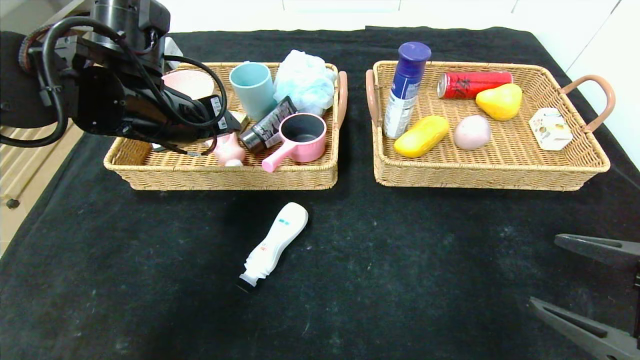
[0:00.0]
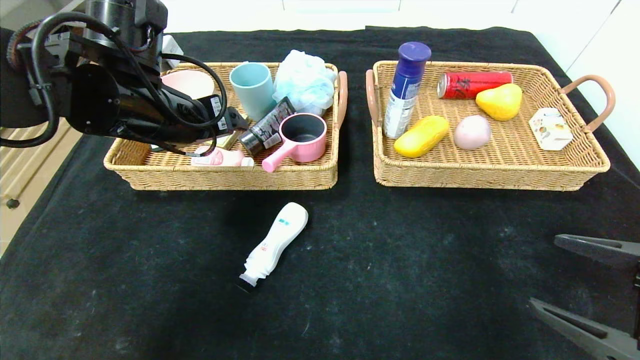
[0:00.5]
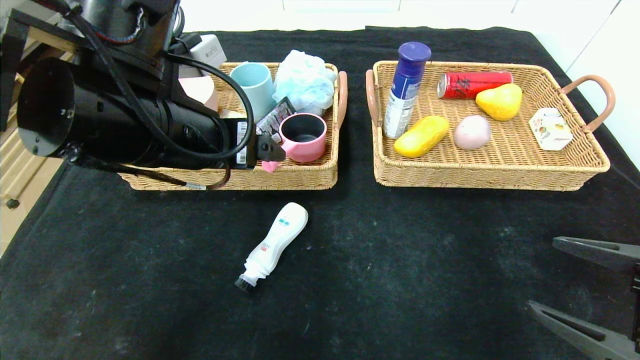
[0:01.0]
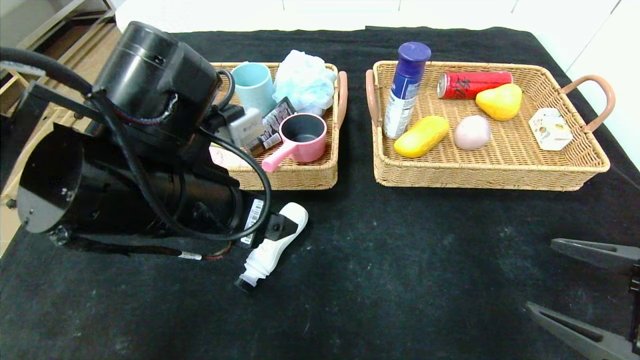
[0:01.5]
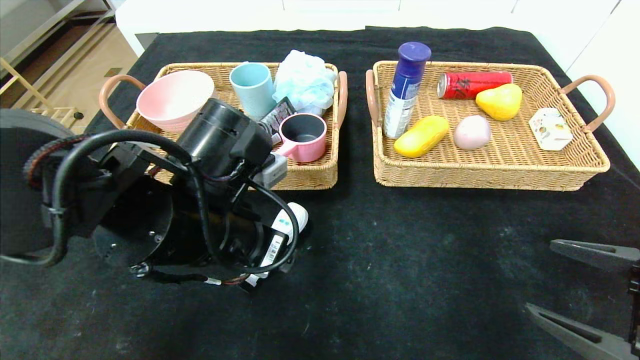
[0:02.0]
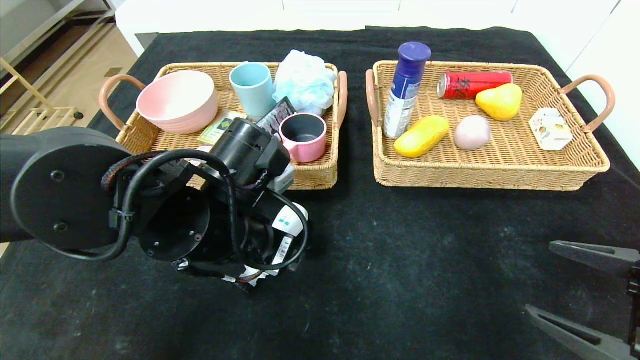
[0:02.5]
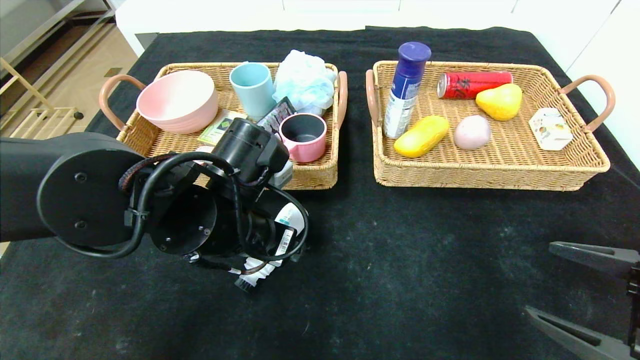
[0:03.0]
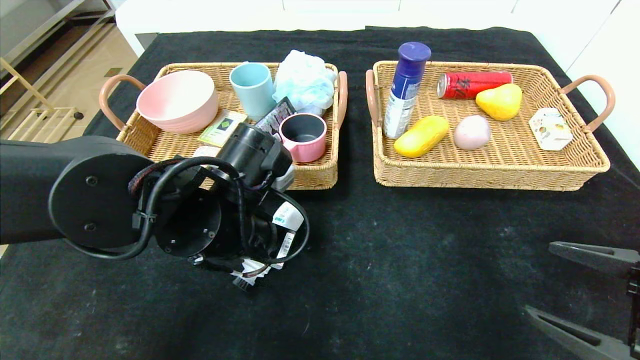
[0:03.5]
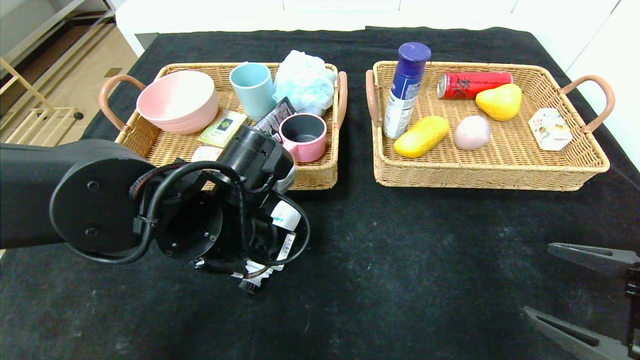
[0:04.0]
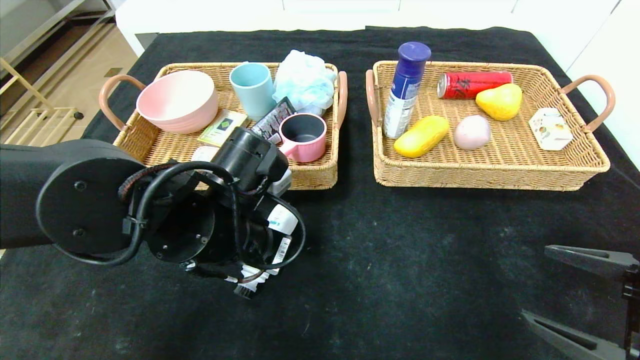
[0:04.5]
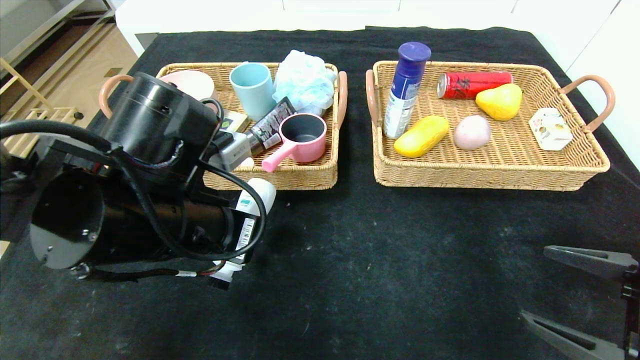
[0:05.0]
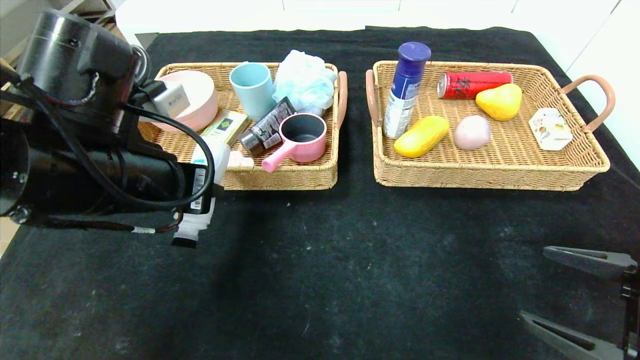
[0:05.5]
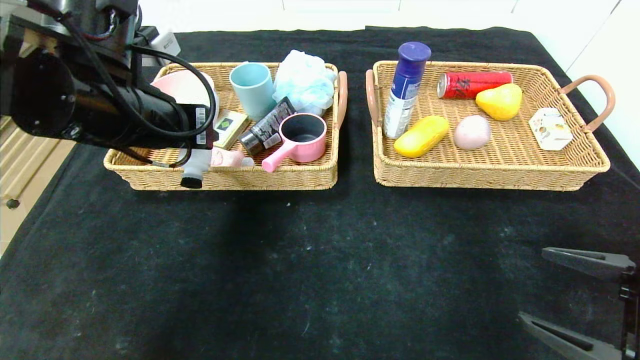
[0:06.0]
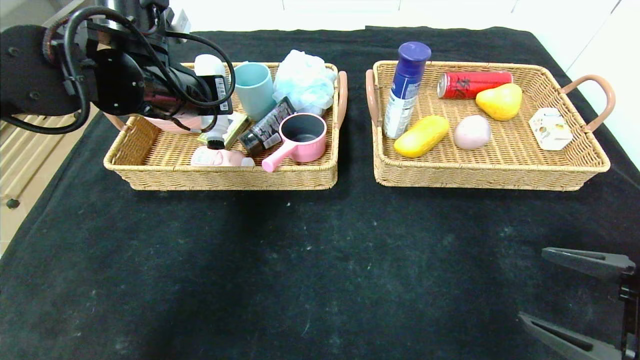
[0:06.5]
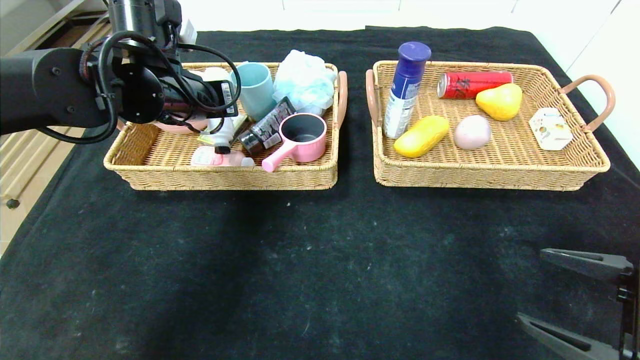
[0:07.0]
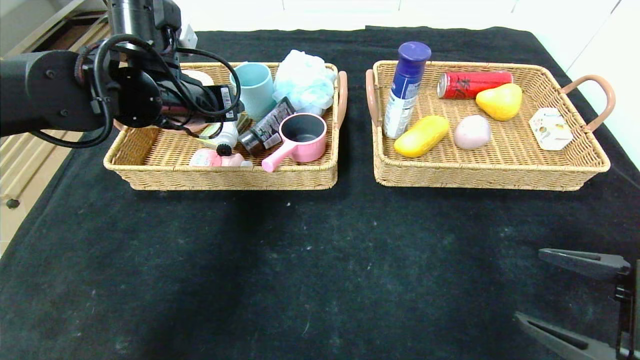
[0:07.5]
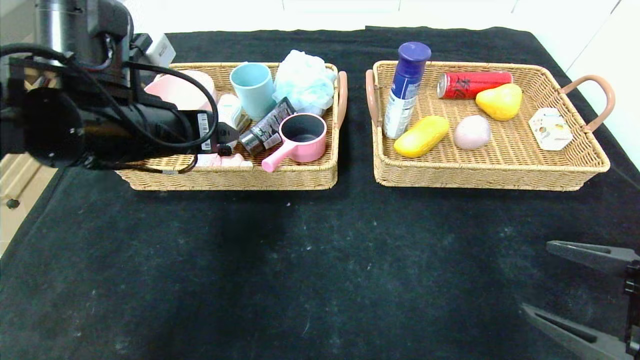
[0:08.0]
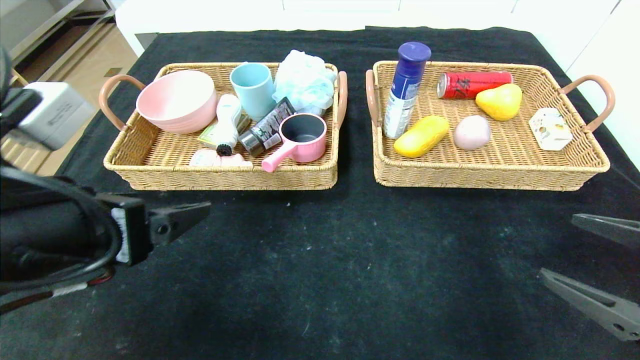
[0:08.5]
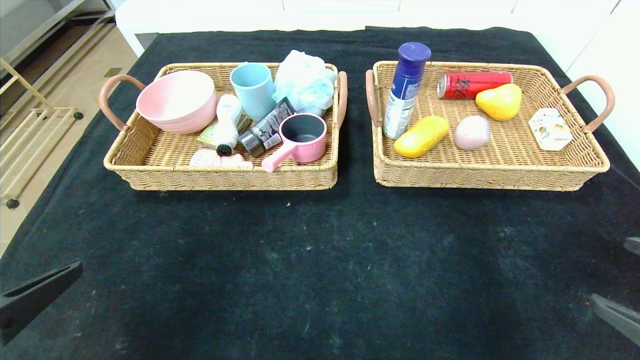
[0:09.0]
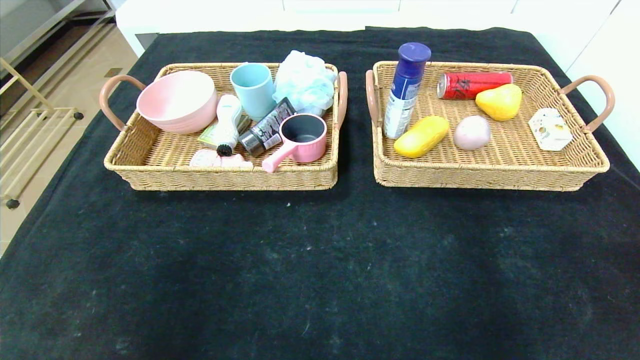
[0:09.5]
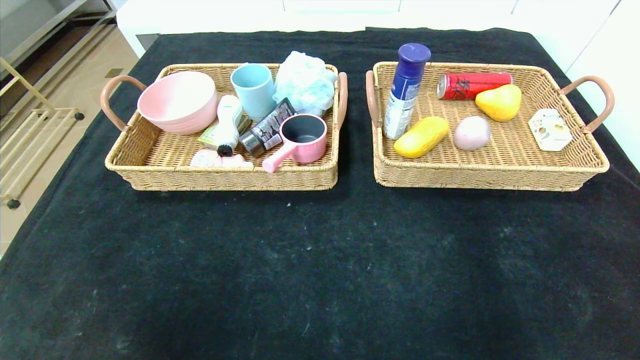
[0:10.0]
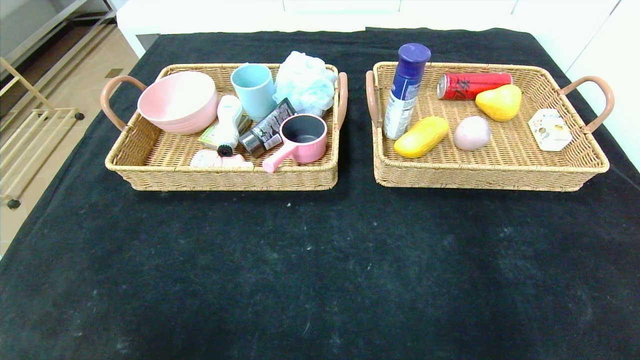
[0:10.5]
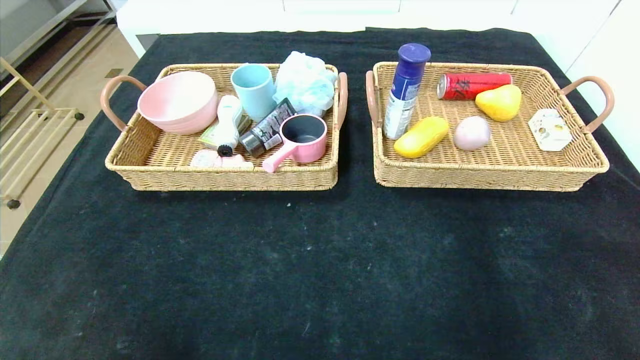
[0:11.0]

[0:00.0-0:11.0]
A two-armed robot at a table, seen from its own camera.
Step, 0:01.0 to 0:08.5: Grasp the washing liquid and put it in the left basket.
0:00.0 to 0:02.0: The left gripper travels backward, to the right and downward by some 15 cm, and opens up.
0:02.0 to 0:03.5: The left gripper closes.
0:03.5 to 0:05.5: The left gripper travels upward and to the left by approximately 10 cm.
0:05.5 to 0:07.5: The left gripper is displaced forward by some 15 cm, and opens its fingers.
0:07.5 to 0:09.0: The left gripper goes about 30 cm backward, while the right gripper changes place by about 5 cm.
0:09.0 to 0:11.0: Both grippers move downward and backward, approximately 15 cm.
